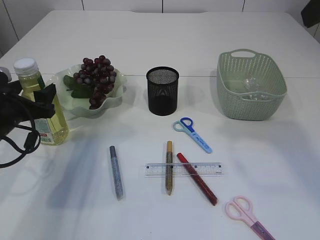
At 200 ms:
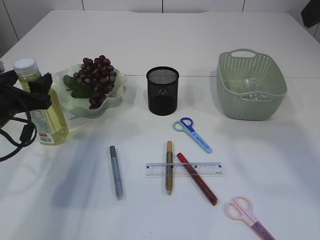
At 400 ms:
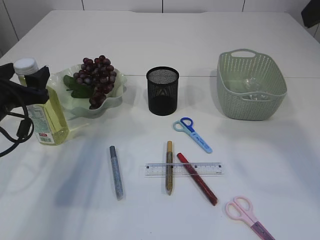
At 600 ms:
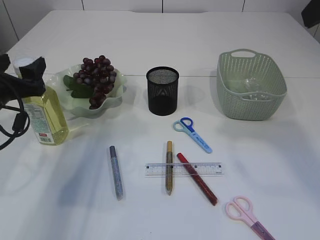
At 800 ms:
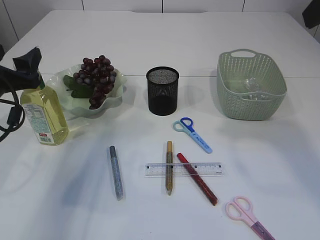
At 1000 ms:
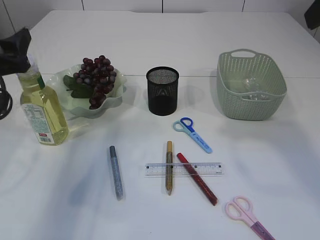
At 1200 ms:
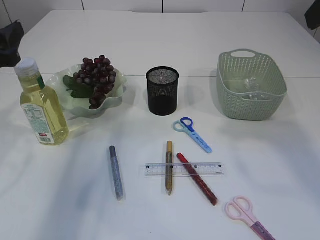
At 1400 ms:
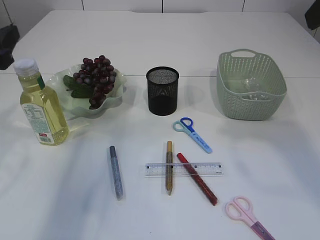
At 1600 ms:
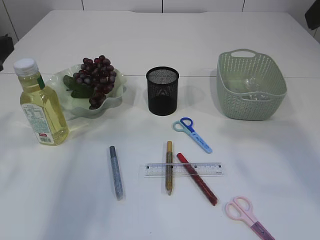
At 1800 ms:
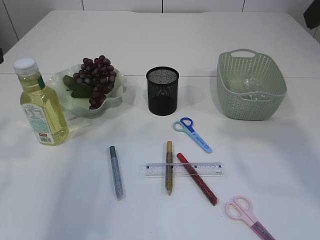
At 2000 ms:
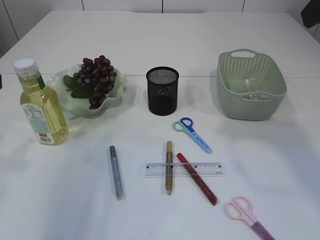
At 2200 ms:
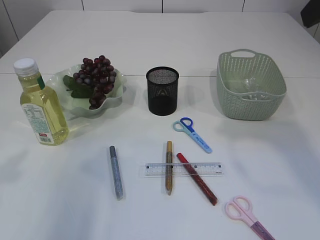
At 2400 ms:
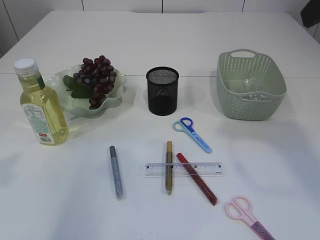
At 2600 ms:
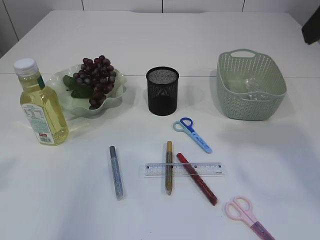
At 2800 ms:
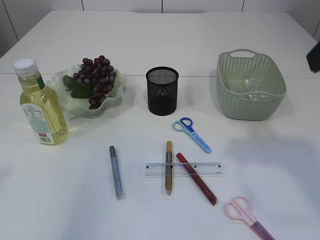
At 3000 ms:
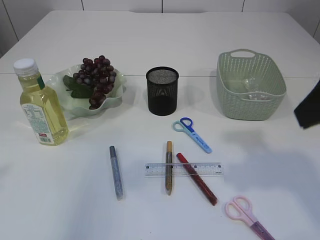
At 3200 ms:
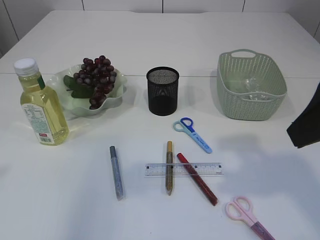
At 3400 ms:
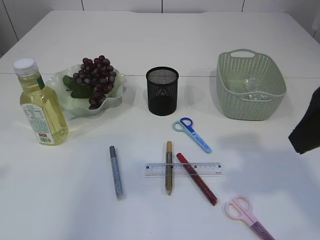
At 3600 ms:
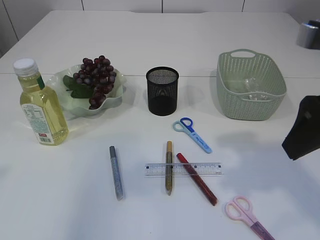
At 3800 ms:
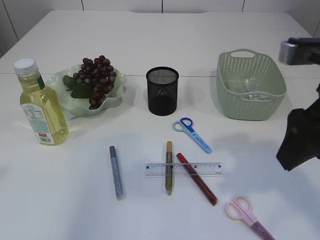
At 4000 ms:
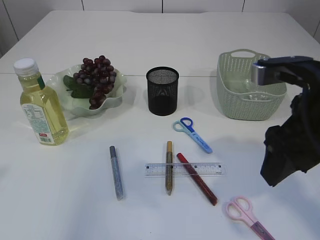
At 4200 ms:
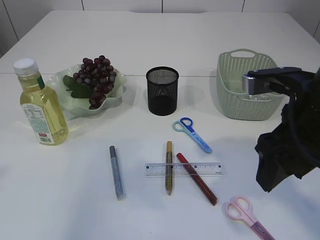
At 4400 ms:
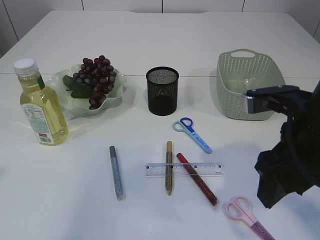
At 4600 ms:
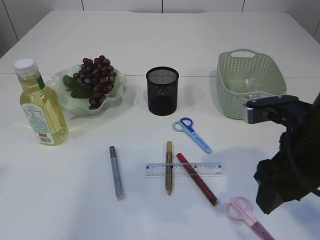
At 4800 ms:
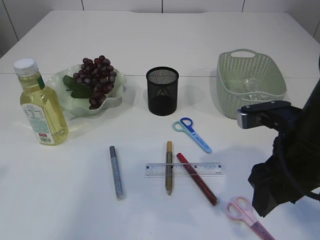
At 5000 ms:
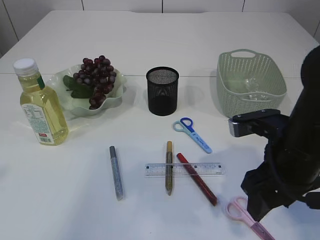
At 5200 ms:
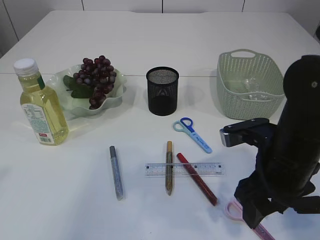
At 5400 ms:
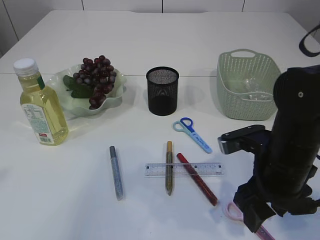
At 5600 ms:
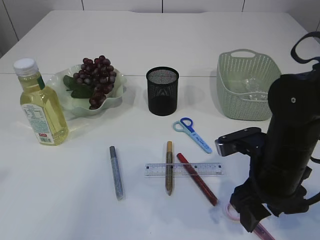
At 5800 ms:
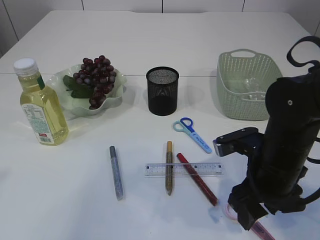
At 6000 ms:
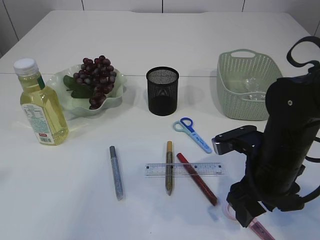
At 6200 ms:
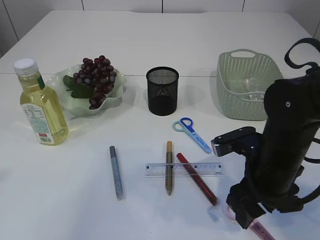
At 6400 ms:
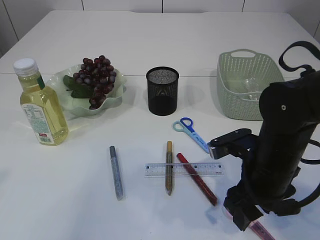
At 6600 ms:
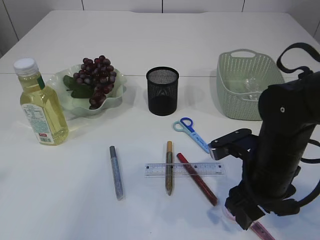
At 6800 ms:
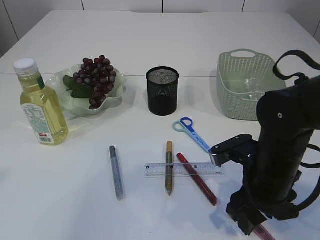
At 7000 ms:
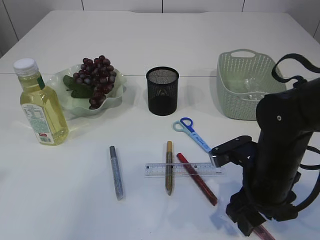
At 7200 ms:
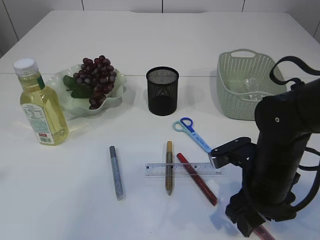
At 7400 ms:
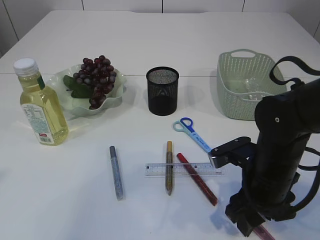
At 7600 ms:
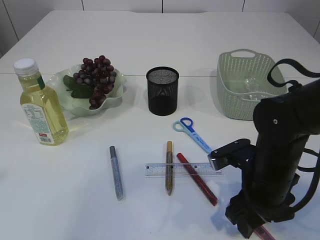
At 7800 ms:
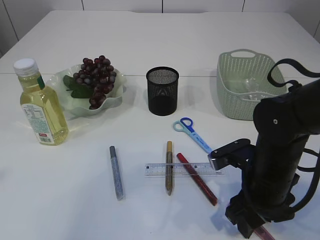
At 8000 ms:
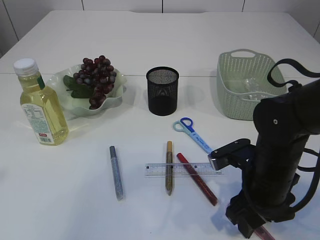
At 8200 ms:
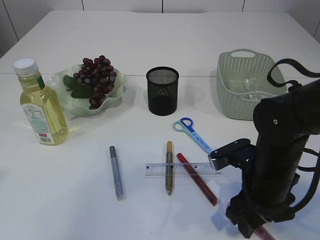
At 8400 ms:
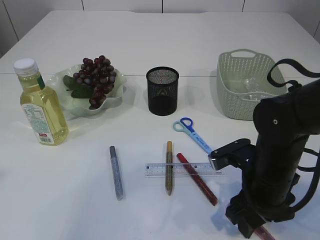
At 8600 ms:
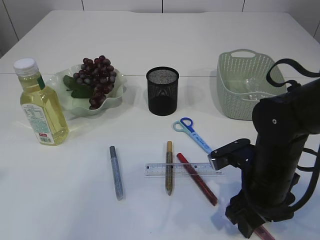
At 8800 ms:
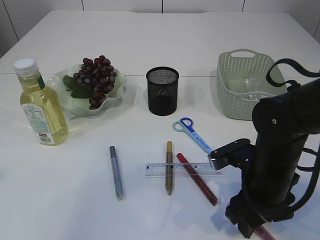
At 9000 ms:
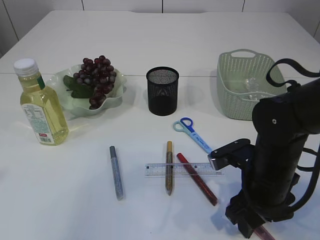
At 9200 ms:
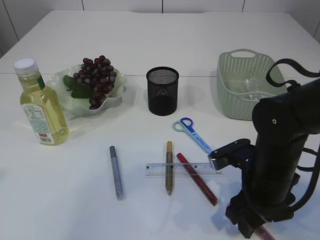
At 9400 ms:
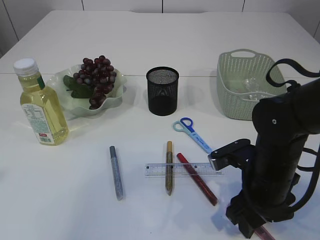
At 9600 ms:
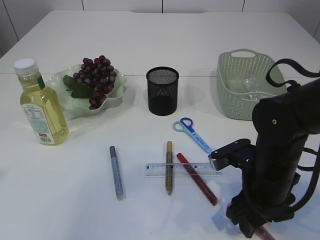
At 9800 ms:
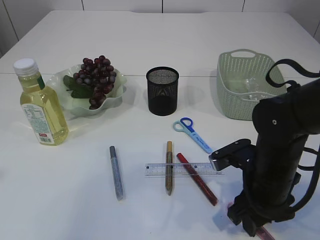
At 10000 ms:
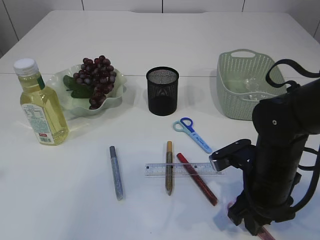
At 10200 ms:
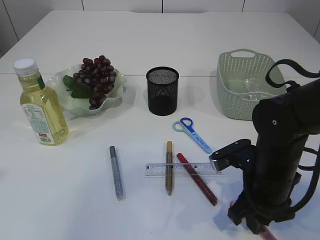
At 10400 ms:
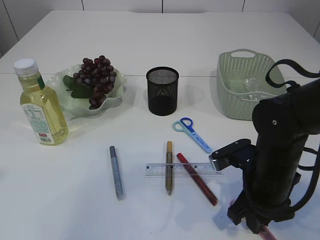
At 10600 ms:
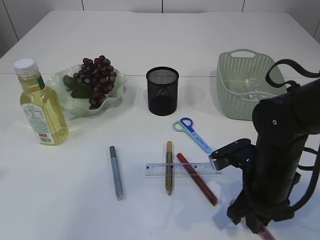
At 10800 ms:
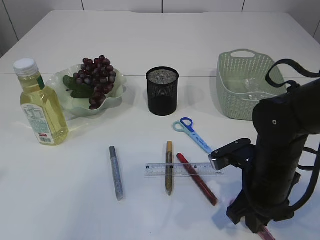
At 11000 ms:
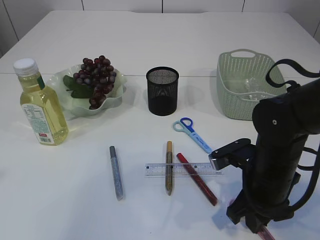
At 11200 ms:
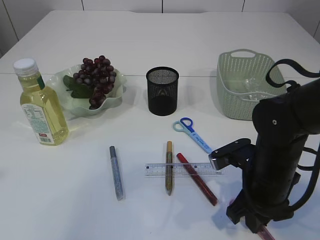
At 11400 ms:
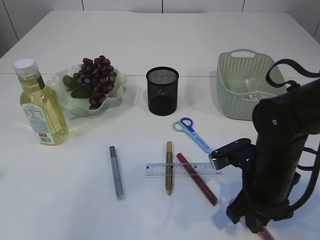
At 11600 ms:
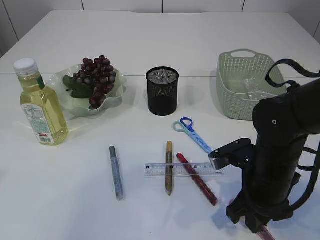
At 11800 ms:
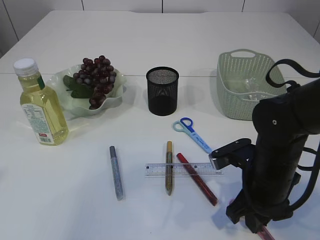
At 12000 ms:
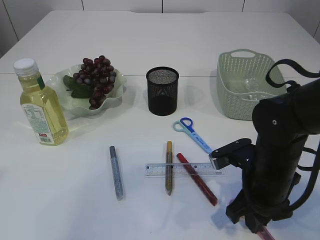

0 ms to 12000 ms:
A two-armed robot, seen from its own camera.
0 ms to 1600 ms: The left gripper heads upward and backward, covering roughly 15 cm.
1600 ms to 3000 ms: The left gripper is displaced backward and upward by approximately 15 cm, while the right gripper goes approximately 10 cm downward and backward.
3000 ms to 4400 ms: The right gripper travels downward by approximately 10 cm.
4400 ms to 6000 ms: The right gripper shifts roughly 10 cm downward.
6000 ms to 7600 ms: There are only small adjustments of the grippers.
7600 ms to 9000 ms: Both grippers stay put.
9000 ms to 10400 ms: The right gripper closes.
10400 ms to 12000 ms: Neither gripper changes place.

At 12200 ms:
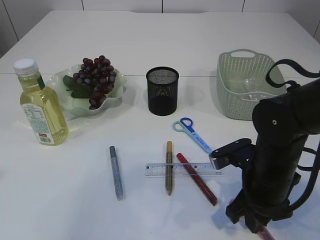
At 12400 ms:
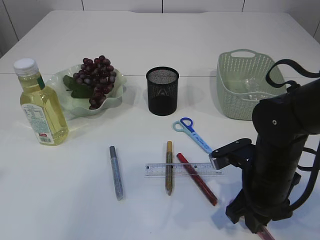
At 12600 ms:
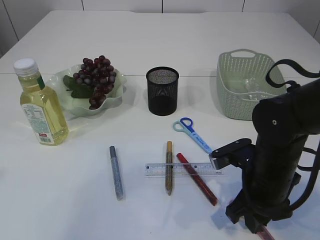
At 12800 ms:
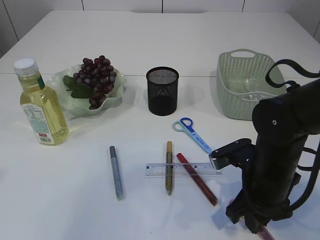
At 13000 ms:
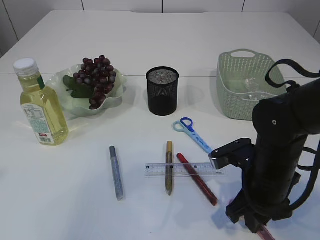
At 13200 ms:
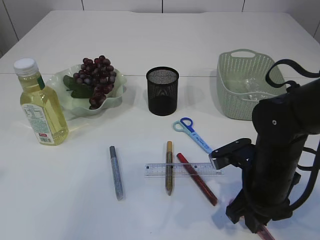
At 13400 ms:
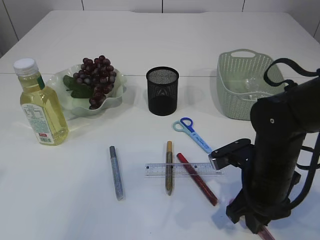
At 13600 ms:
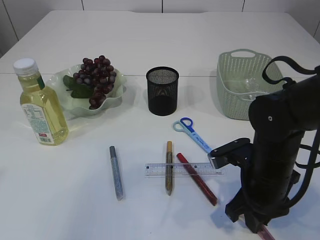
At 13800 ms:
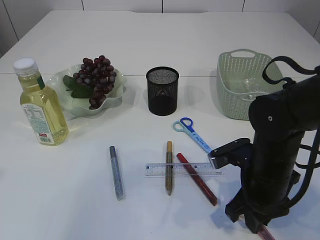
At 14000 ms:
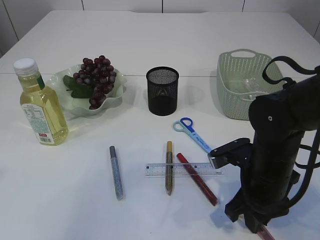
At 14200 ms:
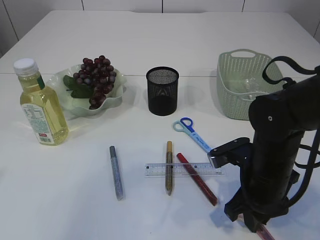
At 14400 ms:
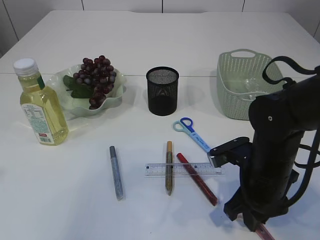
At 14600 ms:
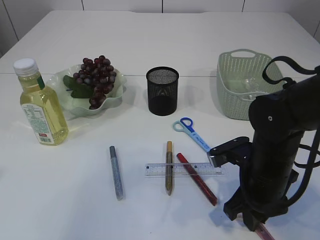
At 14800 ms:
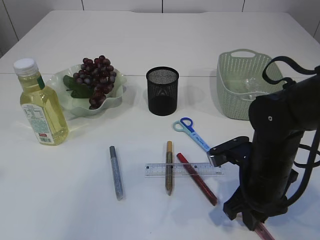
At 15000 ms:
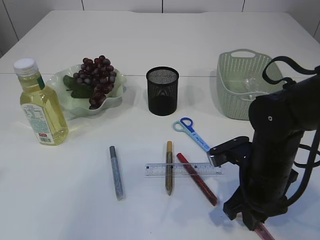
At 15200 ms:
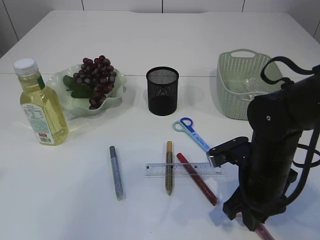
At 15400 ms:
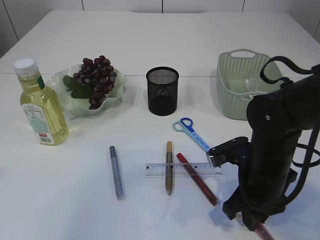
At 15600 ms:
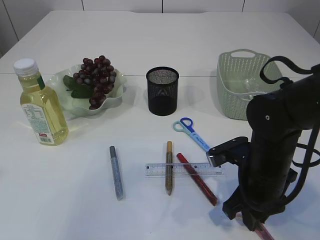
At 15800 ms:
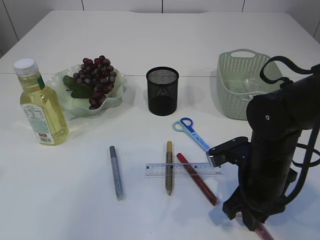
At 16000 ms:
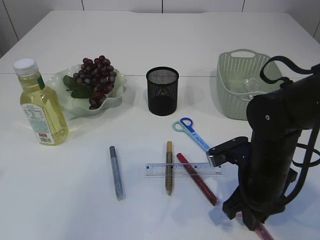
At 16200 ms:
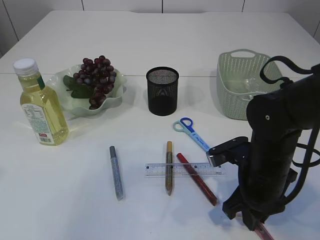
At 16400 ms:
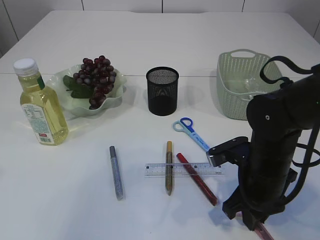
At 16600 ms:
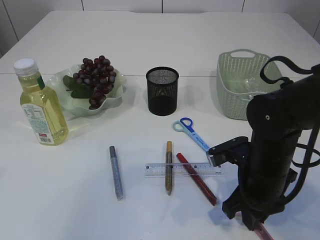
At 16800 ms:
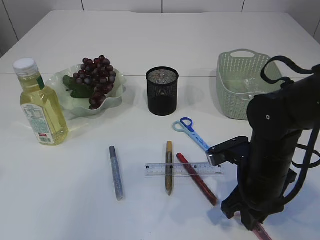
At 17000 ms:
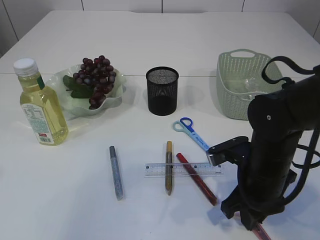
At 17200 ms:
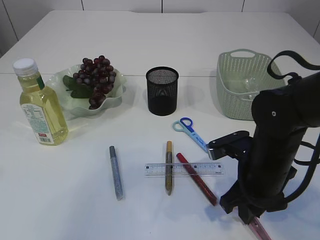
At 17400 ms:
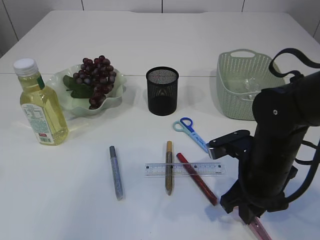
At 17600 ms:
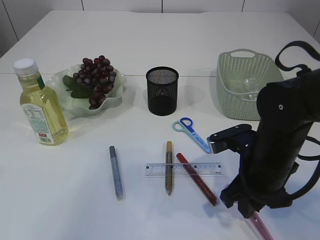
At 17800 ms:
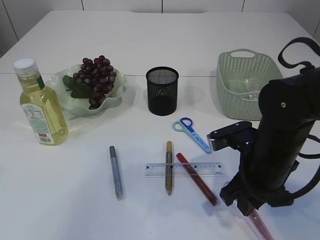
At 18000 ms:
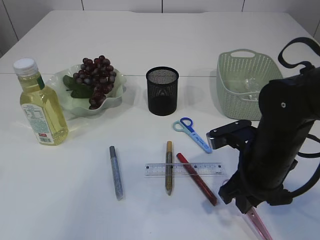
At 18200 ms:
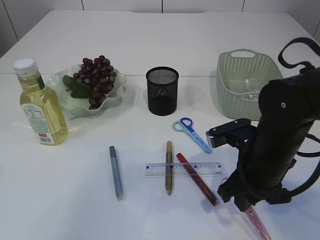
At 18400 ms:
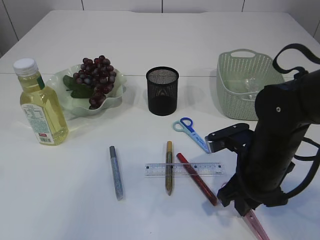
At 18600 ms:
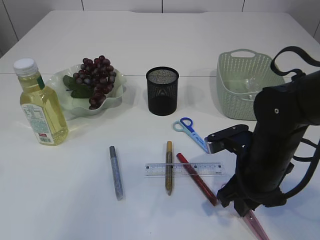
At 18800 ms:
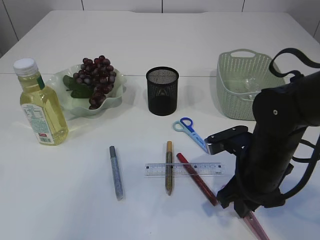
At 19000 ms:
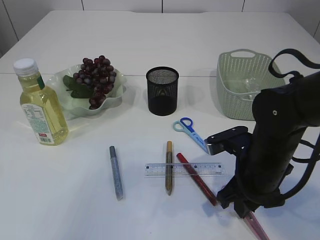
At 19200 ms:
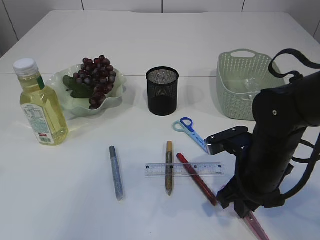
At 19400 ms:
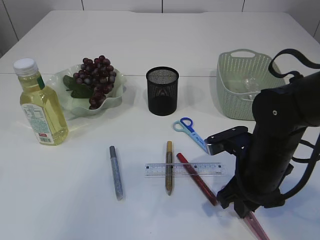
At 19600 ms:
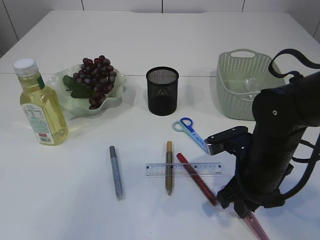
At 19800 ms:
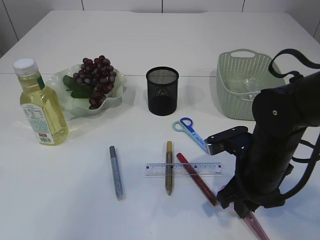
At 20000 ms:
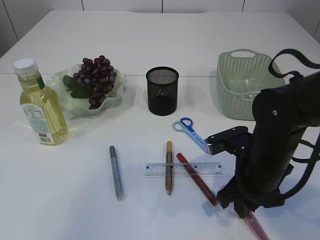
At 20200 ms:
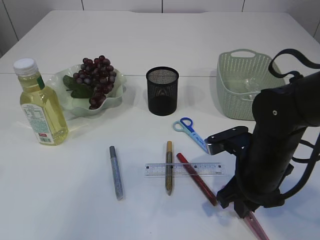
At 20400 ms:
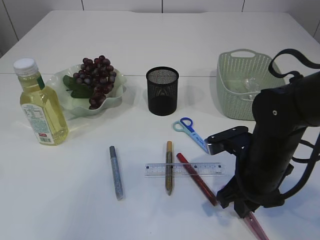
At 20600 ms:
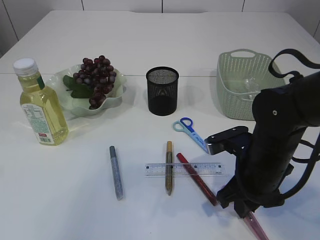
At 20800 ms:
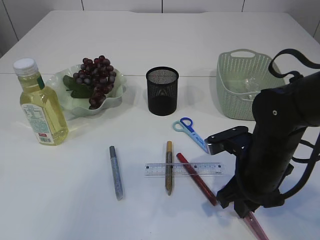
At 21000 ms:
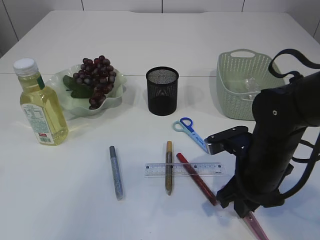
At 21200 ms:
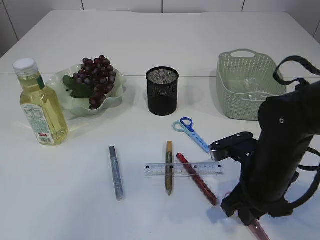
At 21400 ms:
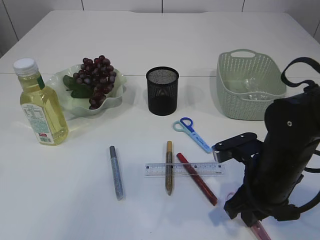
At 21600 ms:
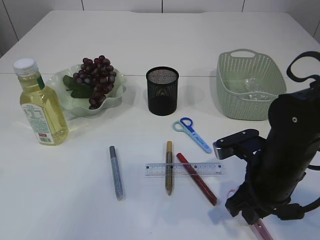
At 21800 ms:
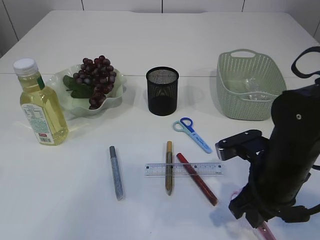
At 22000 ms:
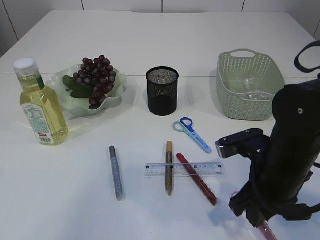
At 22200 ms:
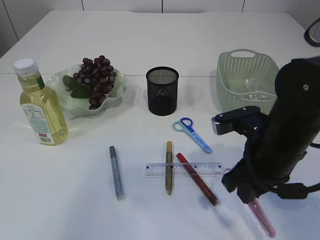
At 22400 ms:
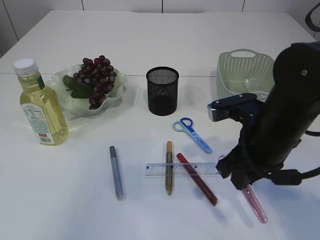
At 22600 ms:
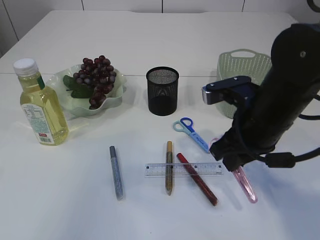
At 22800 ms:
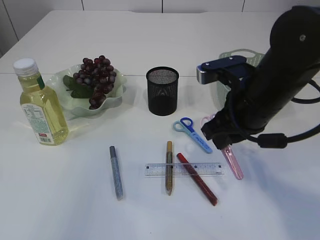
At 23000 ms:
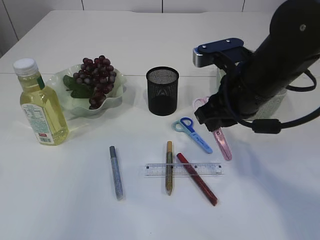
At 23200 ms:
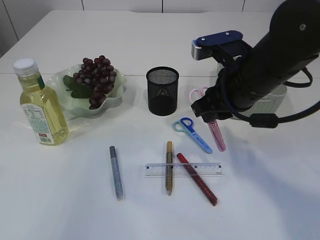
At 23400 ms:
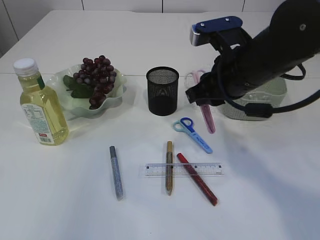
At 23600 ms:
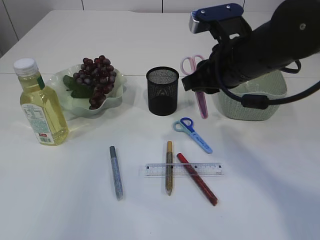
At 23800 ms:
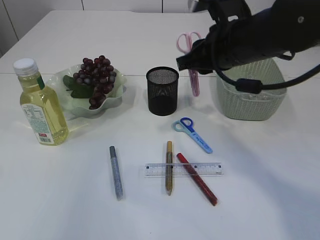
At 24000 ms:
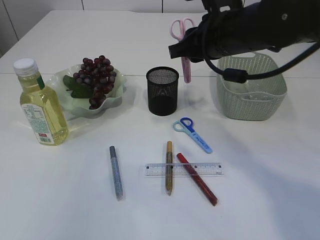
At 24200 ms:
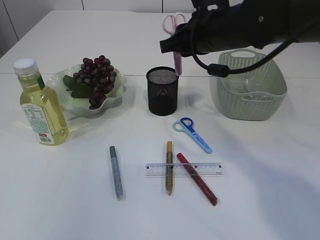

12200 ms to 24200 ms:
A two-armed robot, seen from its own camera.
Step, 12200 ms to 22200 ms: pick up the pink scissors.
12200 ms to 16600 ms: Both grippers stay put.
16600 ms to 19800 ms: The grippers move only a little.
19800 ms to 21200 ms: Both grippers stay put.
21200 ms to 22600 ms: The right gripper shifts roughly 10 cm upward.
22600 ms to 24200 ms: The right gripper heads forward and upward, covering about 15 cm.
